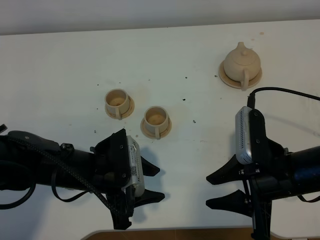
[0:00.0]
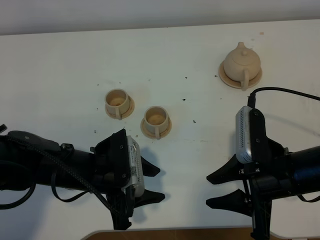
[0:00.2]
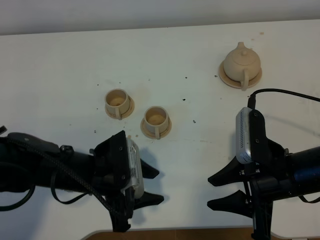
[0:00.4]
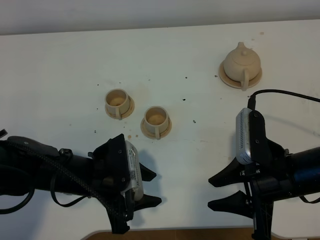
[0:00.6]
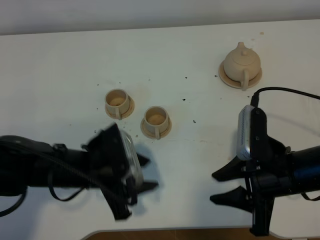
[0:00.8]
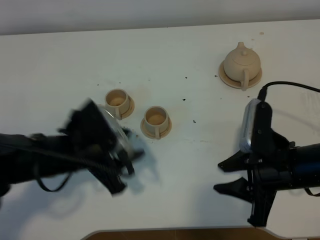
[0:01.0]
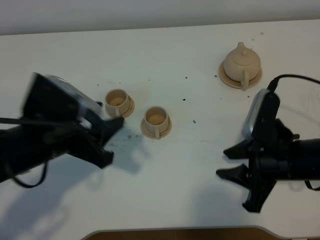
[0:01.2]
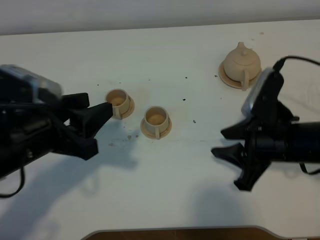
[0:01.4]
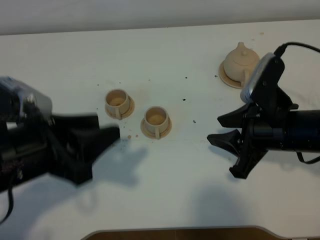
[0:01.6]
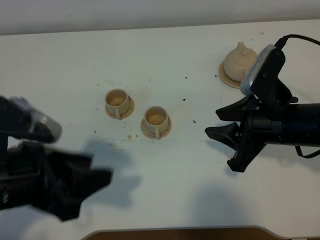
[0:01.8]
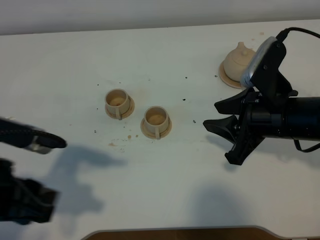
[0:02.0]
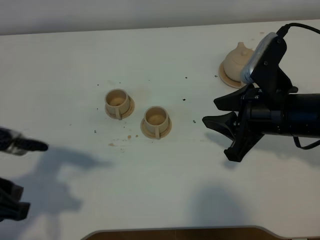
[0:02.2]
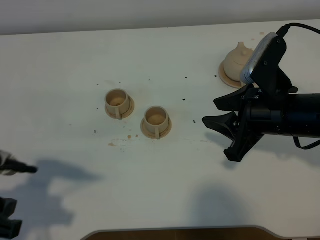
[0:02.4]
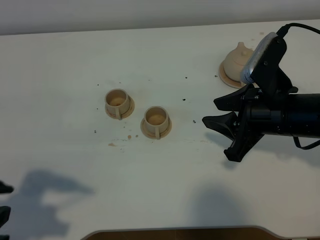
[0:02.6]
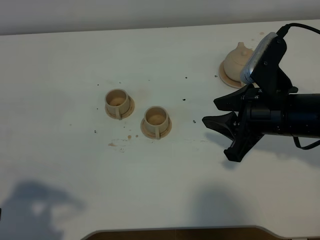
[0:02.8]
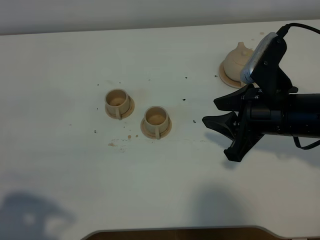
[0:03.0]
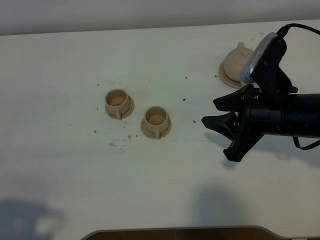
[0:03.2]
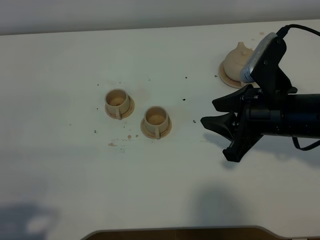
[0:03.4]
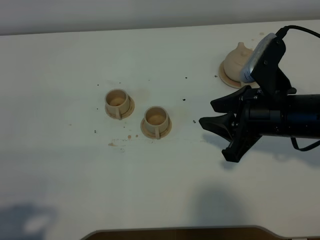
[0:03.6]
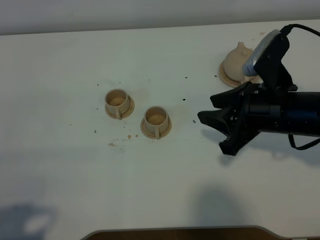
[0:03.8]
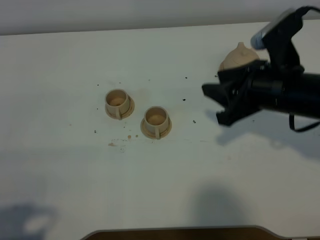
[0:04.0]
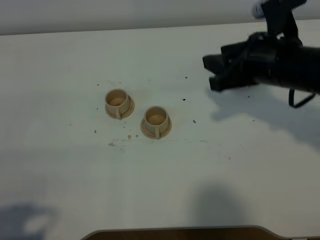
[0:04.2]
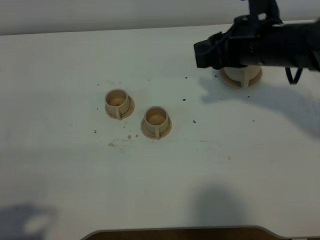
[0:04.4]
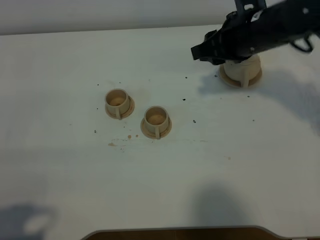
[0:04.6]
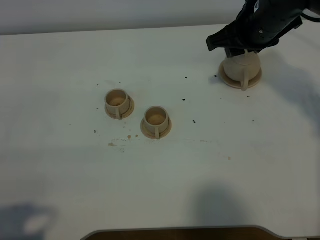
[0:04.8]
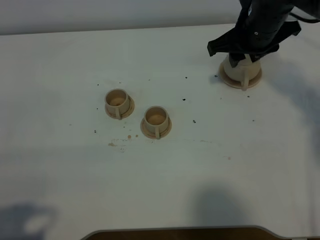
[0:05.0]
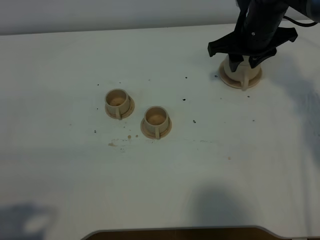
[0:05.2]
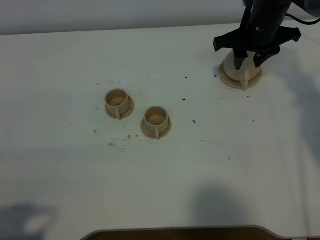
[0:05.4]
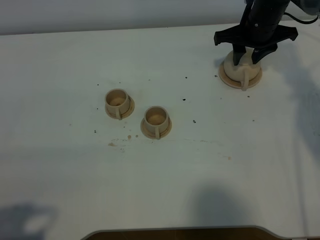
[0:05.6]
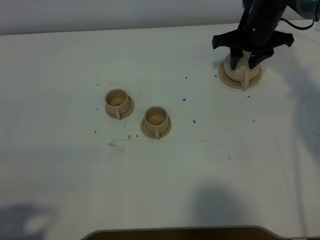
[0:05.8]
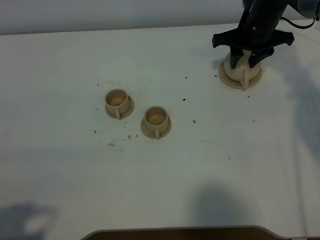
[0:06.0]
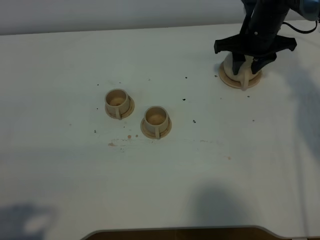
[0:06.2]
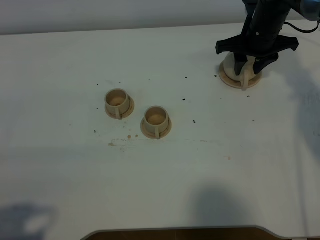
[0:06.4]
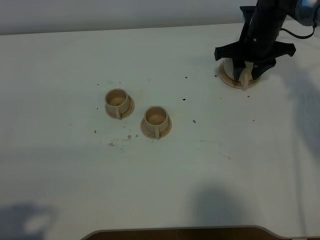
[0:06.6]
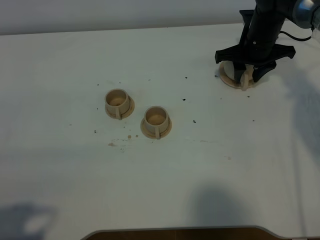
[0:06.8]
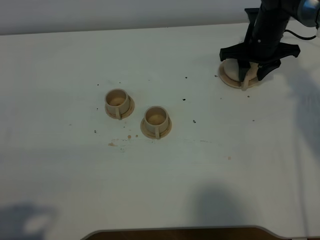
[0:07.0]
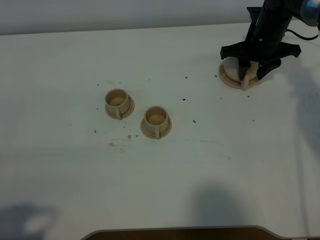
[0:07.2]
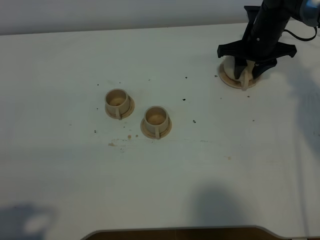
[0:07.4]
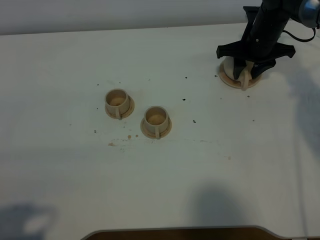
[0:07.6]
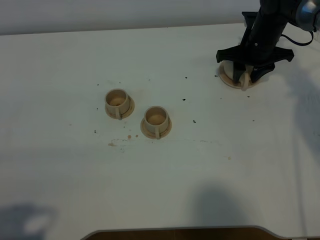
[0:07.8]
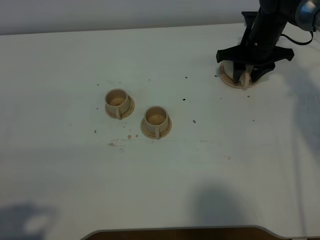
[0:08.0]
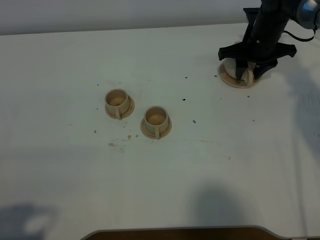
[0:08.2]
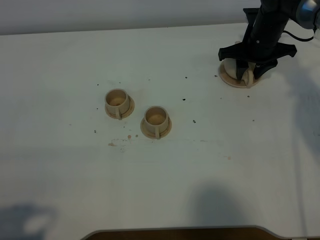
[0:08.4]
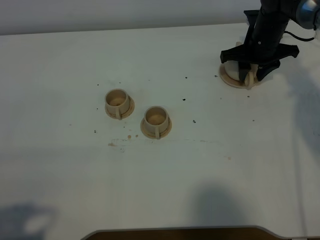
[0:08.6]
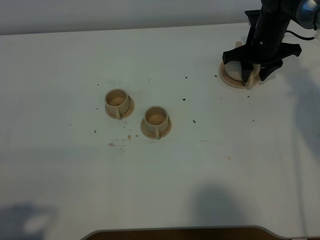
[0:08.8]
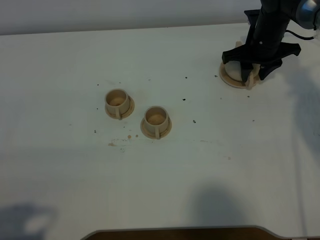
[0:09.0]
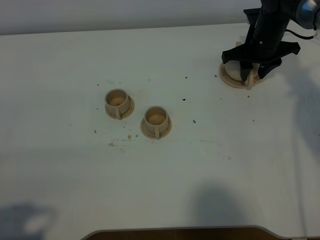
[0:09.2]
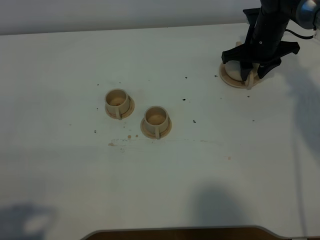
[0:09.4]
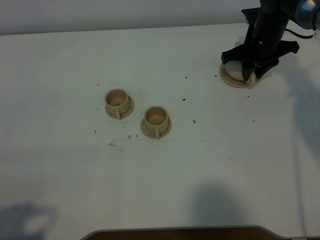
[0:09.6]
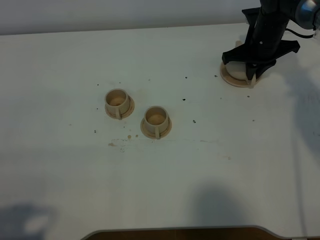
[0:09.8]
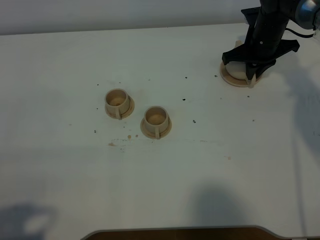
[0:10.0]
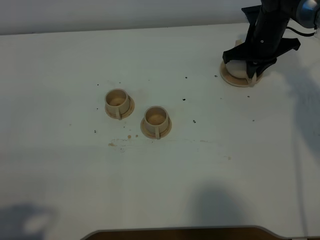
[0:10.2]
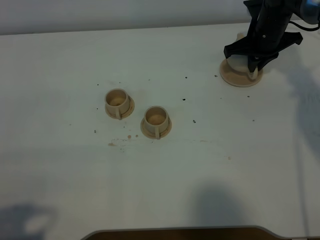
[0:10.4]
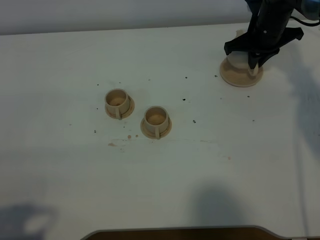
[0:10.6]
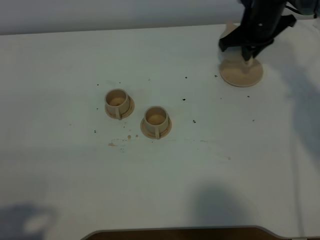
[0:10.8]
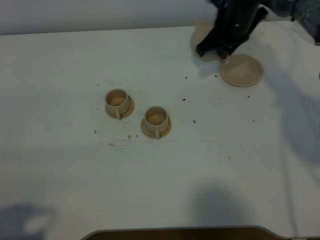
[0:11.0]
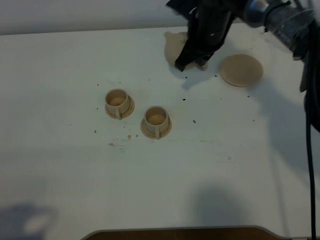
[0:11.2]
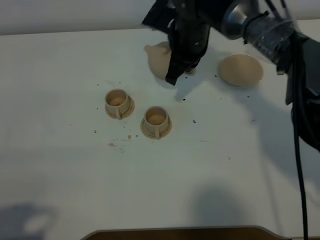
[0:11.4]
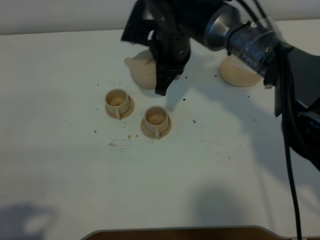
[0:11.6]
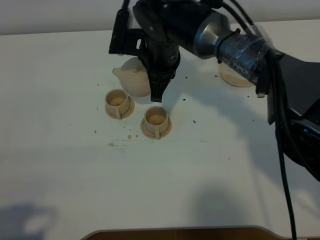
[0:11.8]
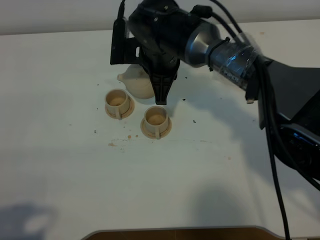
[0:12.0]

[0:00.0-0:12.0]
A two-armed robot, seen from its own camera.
Task of the whole recording: grasp the brown teapot and pour the tea into the two brown teacups one by one, put the brown teapot back in its original place.
Step, 0:00.0 to 0:10.2: Pick up the teapot with the right gripper.
0:00.0 to 0:01.6: The left gripper shifts some 15 cm upward, while the right gripper ends up some 5 cm from where it was.
0:01.6 to 0:03.0: The left gripper heads backward and to the left, covering roughly 15 cm.
0:03.0 to 0:04.4: The right gripper moves forward, about 10 cm.
0:04.4 to 0:06.0: The right gripper travels forward and downward by about 15 cm.
0:06.0 to 0:09.0: The grippers make only small movements.
0:09.0 to 0:10.4: The right gripper closes up.
0:10.4 to 0:12.0: The right gripper goes roughly 20 cm to the left.

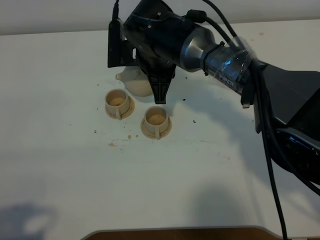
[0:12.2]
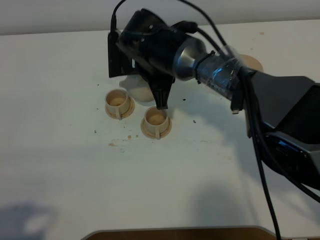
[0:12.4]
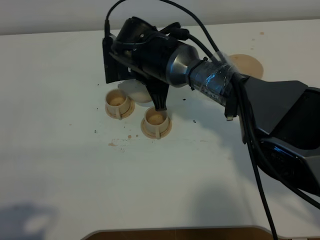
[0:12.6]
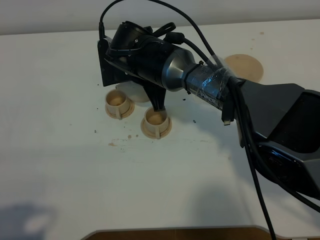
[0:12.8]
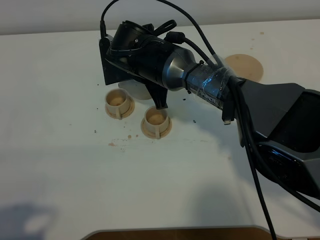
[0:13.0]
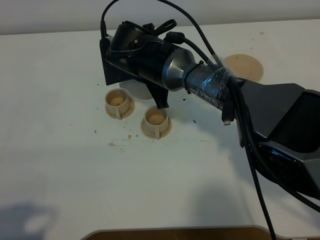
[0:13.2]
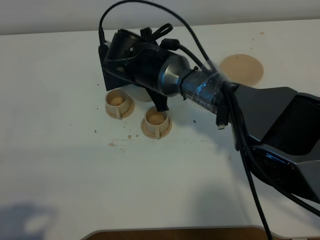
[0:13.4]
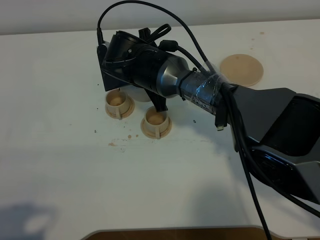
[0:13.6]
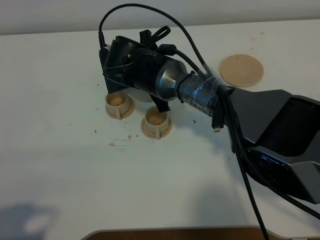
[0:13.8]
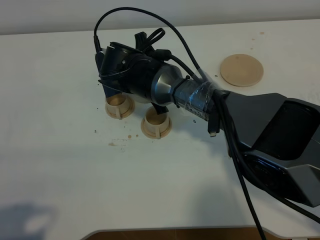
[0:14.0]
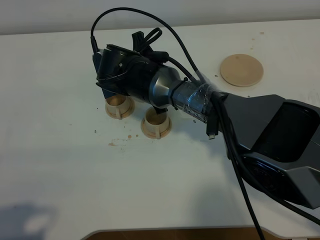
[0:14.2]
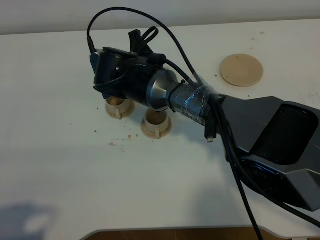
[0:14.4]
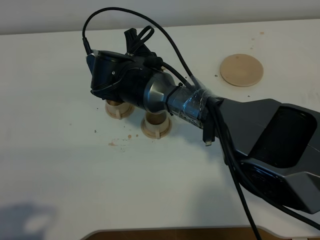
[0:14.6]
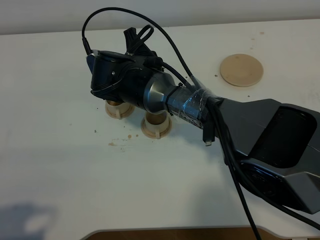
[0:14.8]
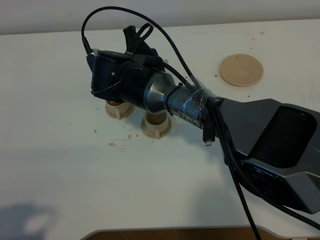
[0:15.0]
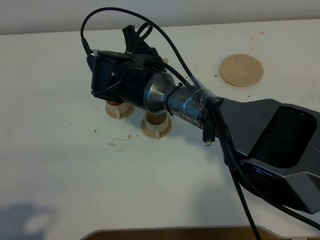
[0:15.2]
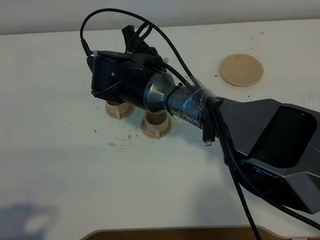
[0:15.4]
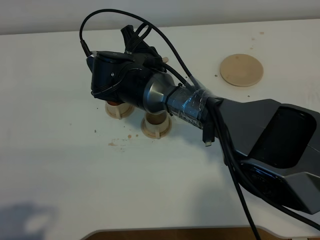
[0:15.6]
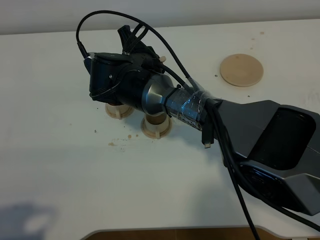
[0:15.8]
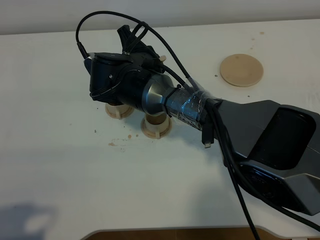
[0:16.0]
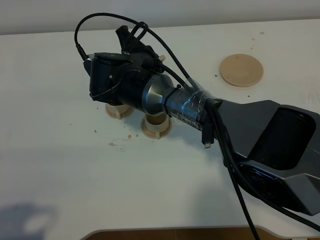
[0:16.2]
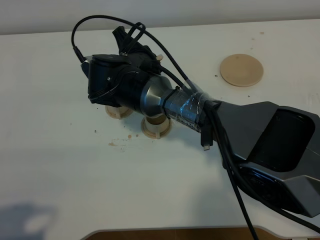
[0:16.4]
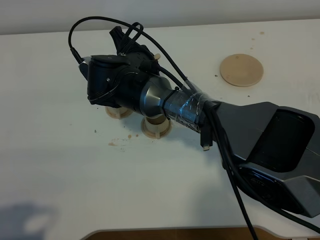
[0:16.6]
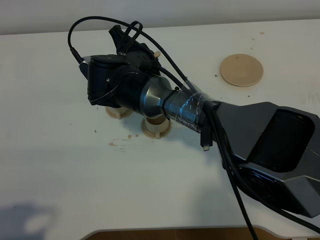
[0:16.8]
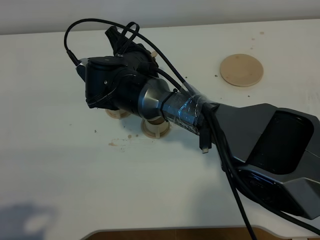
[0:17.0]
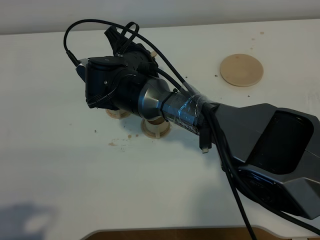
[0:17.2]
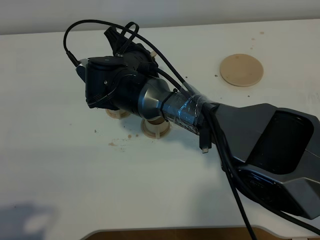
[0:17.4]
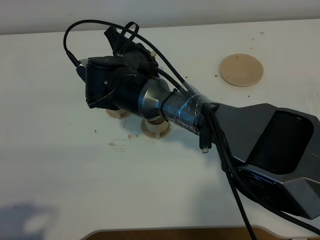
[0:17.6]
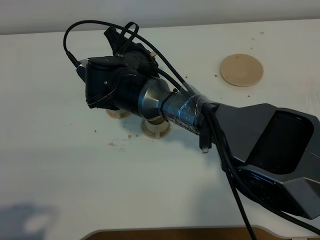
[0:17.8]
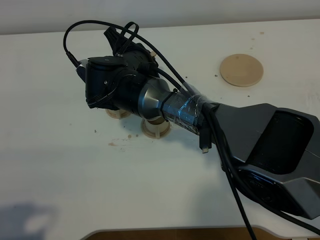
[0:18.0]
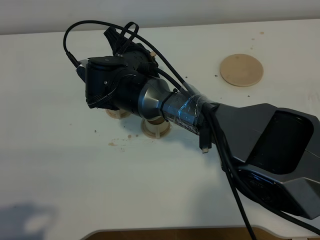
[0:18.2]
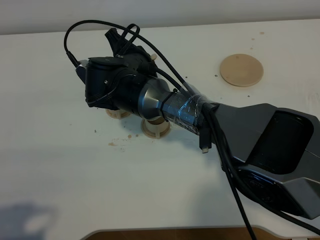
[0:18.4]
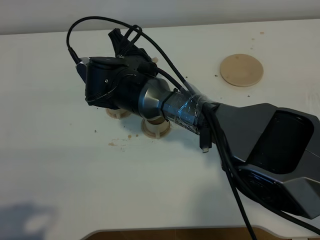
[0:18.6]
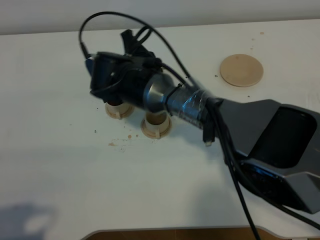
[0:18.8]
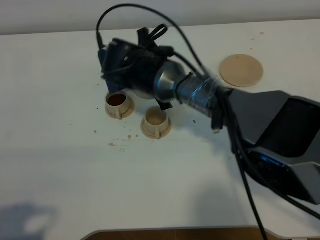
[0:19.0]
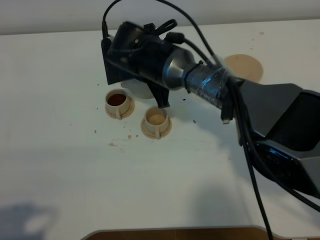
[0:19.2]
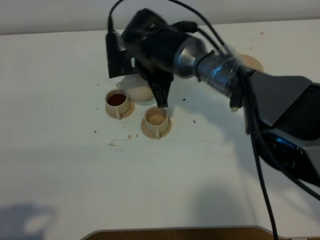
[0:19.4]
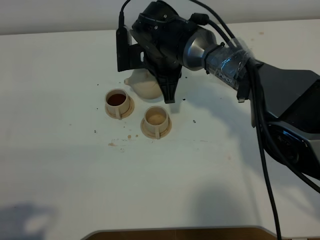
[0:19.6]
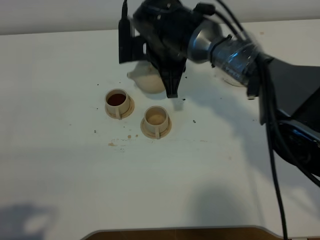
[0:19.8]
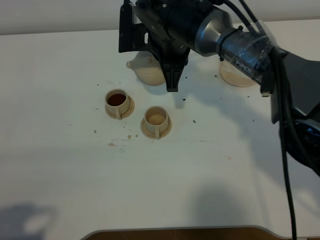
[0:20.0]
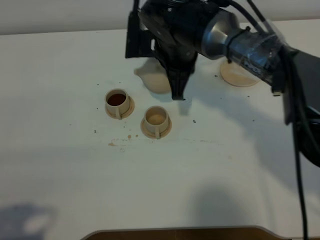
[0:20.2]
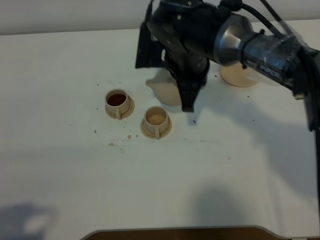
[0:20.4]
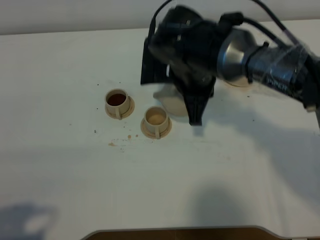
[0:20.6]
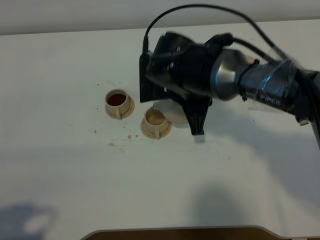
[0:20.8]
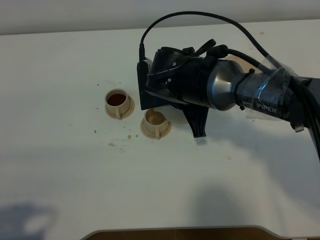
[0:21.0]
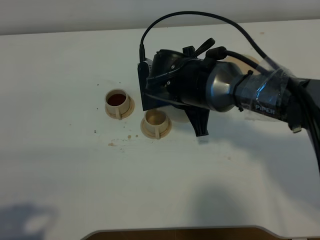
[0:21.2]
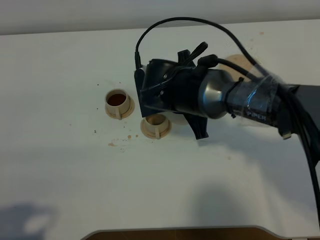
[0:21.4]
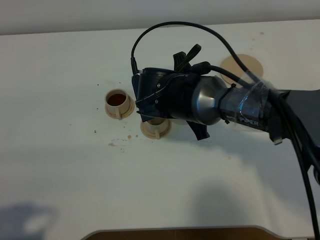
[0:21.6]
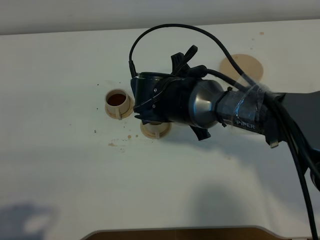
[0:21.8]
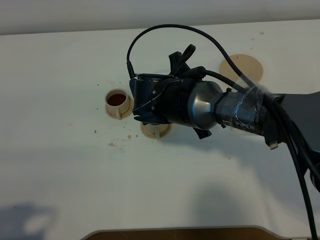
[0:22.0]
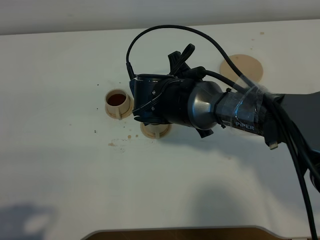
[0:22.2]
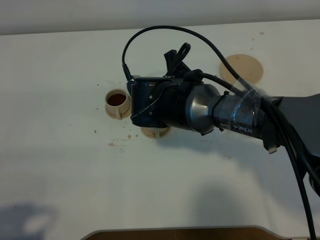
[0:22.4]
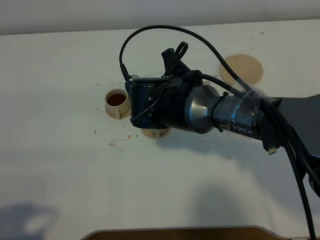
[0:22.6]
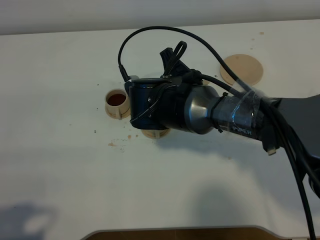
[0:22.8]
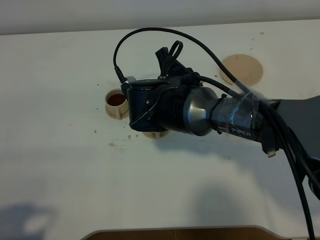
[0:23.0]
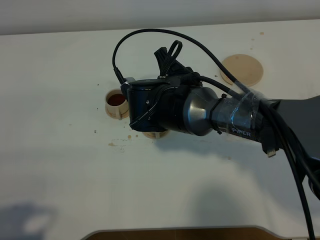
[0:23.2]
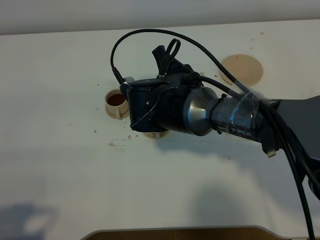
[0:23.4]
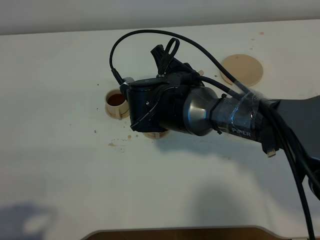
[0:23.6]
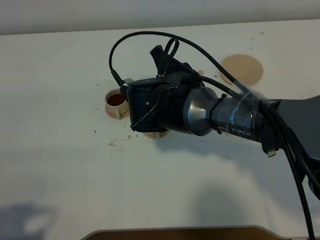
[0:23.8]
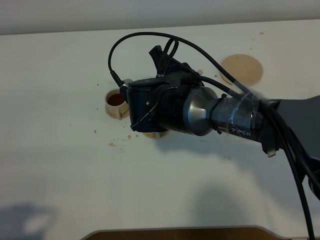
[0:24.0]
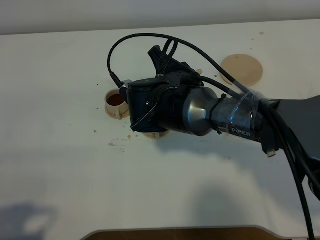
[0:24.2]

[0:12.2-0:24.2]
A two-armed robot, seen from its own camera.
Task of the whole recording: grasp the brown teapot and pour the tea into the two brown teacups one by one, put the brown teapot back in its original place.
Step, 0:12.2 to 0:18.8: Pour tea into the teacup with the right gripper.
0:13.8 to 0:15.2: The grippers move only a little.
0:15.2 to 0:16.6: The grippers make only small movements.
0:16.6 to 0:18.2: Both grippers stay about where they are.
0:18.2 to 0:19.8: The right gripper heads to the right, covering roughly 5 cm.
0:19.8 to 0:21.2: The right gripper travels backward by about 10 cm.
0:22.6 to 0:24.2: The grippers make only small movements.
